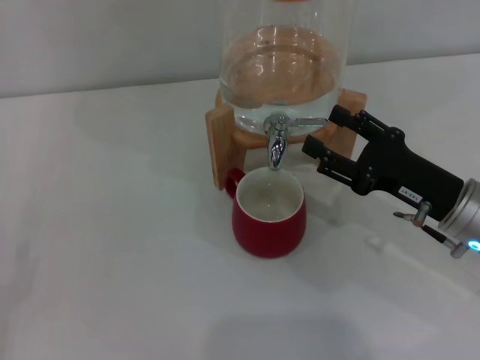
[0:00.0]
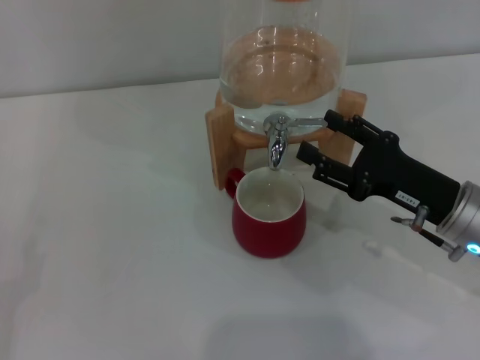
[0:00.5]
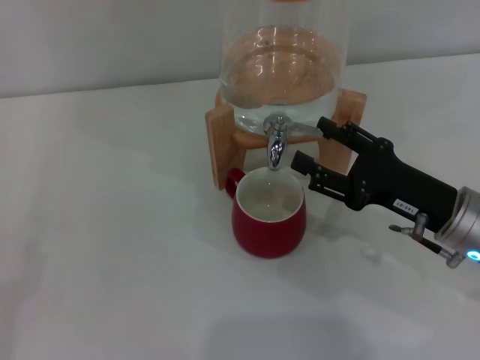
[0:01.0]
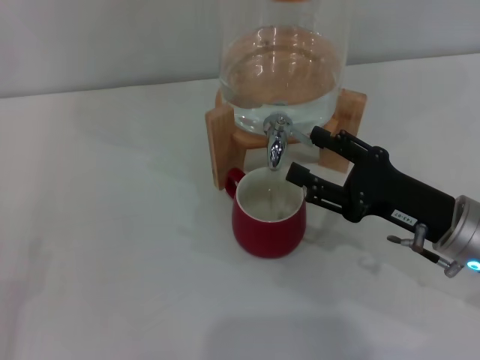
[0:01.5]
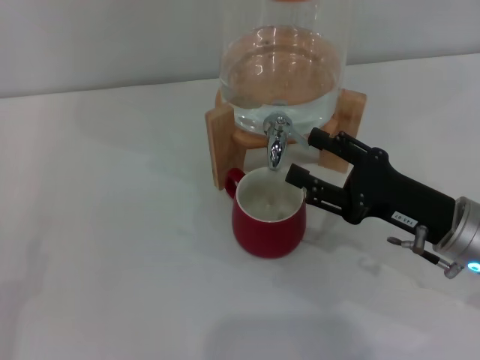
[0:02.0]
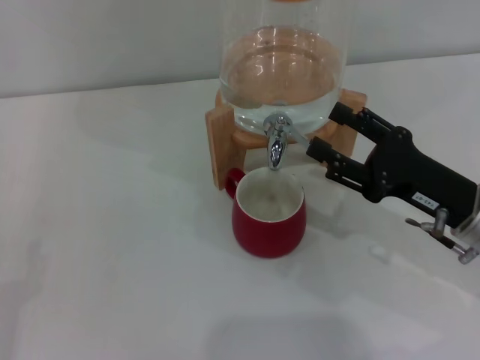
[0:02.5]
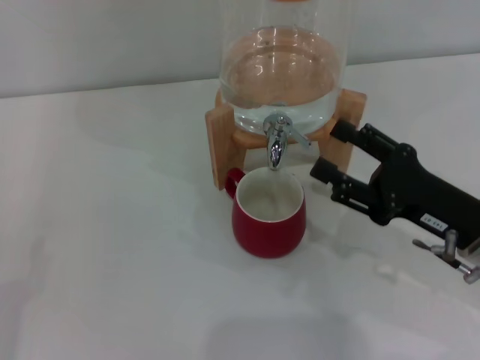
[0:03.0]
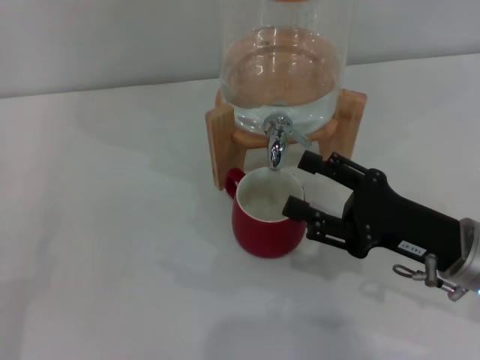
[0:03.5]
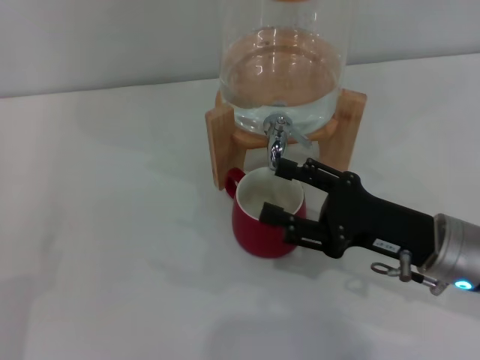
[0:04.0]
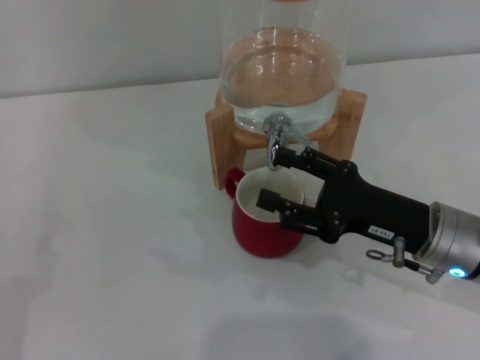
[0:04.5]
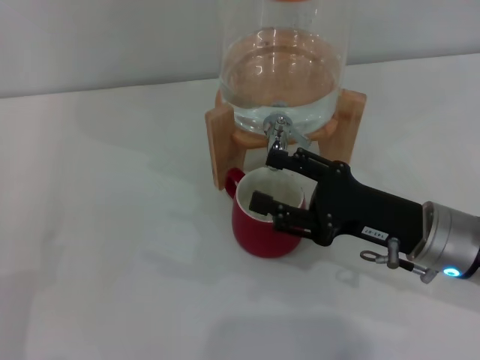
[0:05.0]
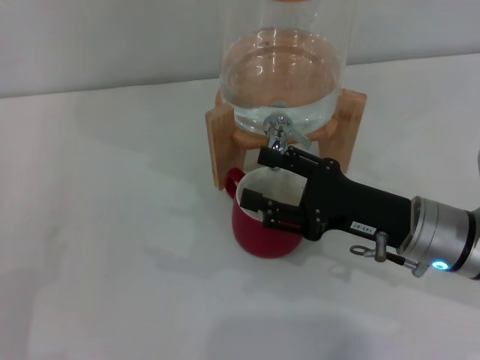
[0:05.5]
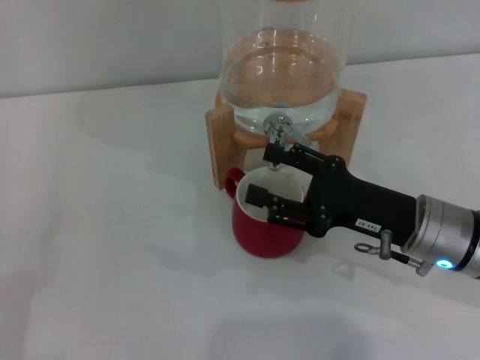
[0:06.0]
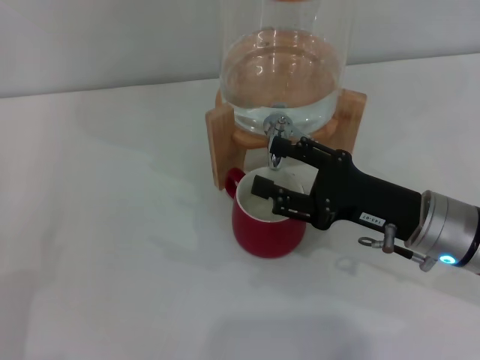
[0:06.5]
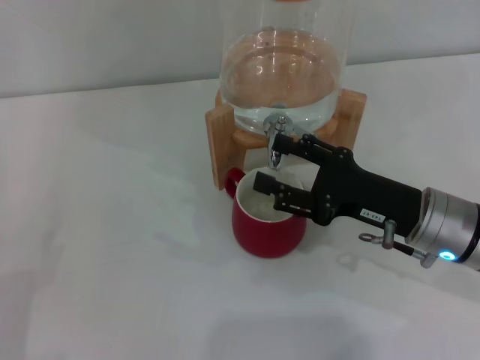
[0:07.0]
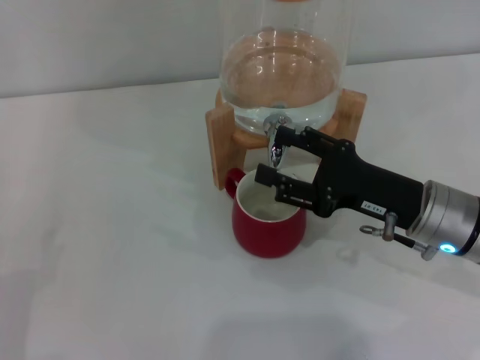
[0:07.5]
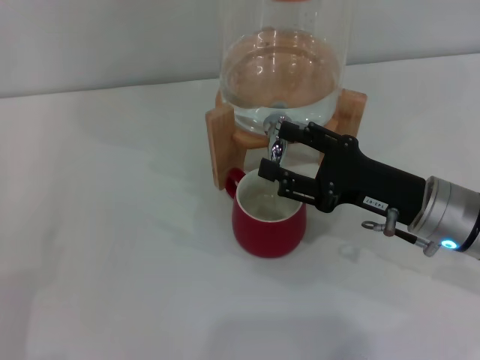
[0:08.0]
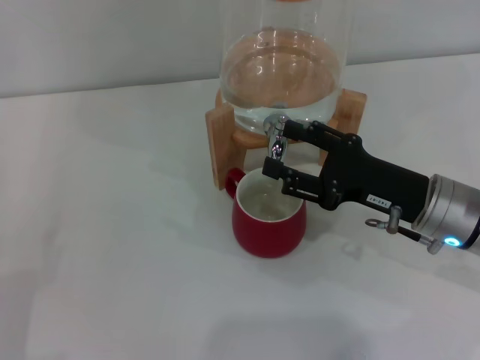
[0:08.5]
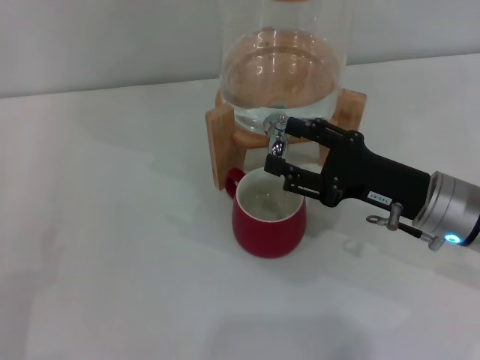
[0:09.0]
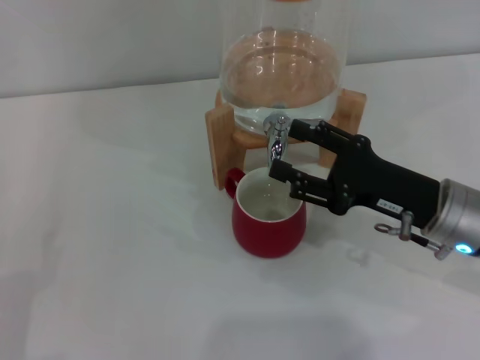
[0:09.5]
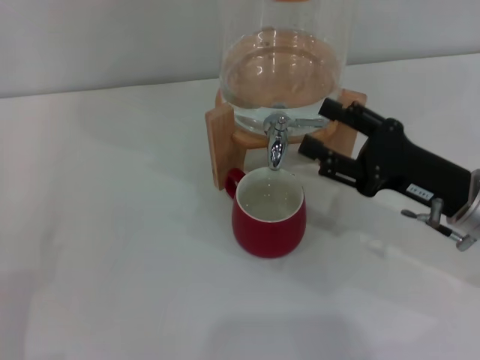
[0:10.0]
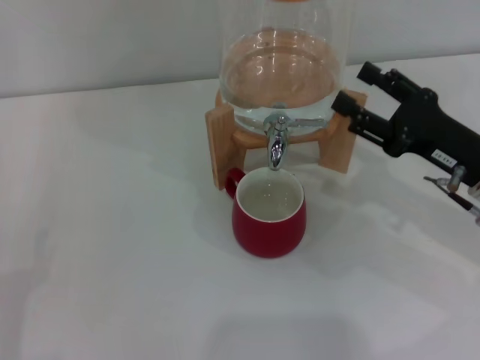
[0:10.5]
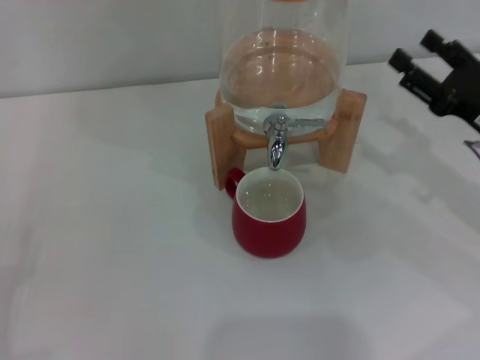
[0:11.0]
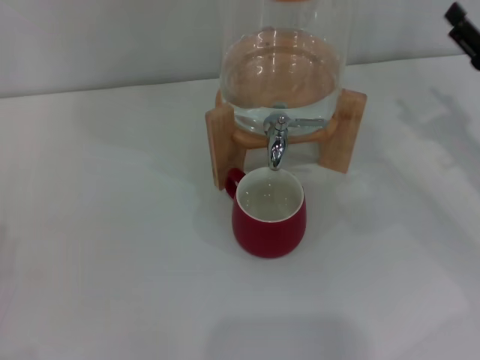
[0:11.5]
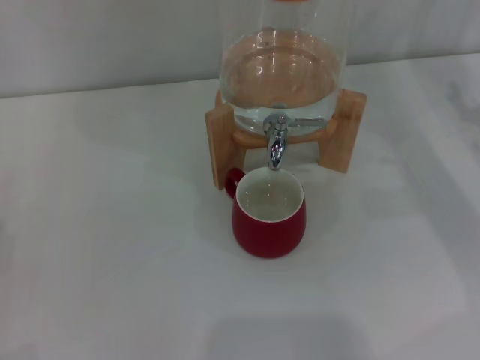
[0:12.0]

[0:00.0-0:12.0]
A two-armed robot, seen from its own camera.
Task of the whole recording: the left gripper pick up the red cup and place it horizontally under the faucet, the right gripper turn on the faucet to fill the cup, and then turn off the faucet.
Step, 0:00.0 to 0:02.0: Open the dispenser valve and fill the cup with water with the right gripper.
Step, 0:02.5 to 0:09.5: Close the dispenser valve with the right gripper.
0:00.0 to 0:10.0: The grippers move only a little.
0:10.0 to 0:12.0: The right gripper travels to the right by approximately 10 cm.
